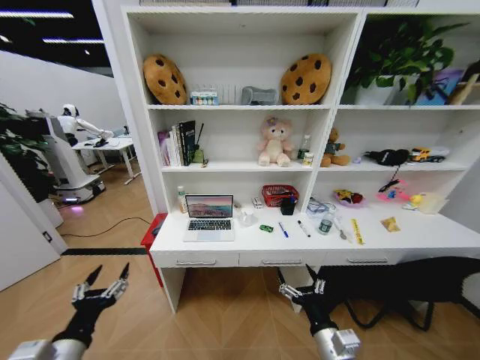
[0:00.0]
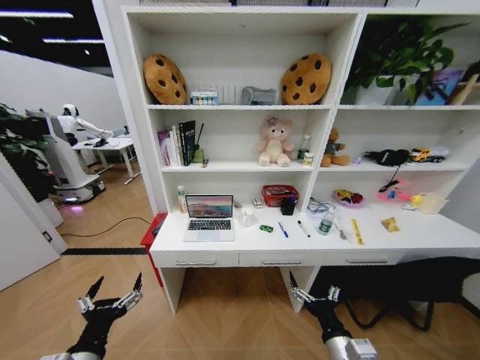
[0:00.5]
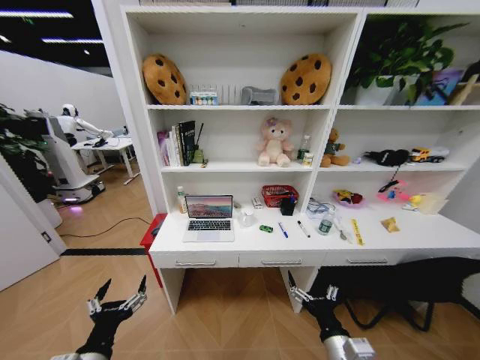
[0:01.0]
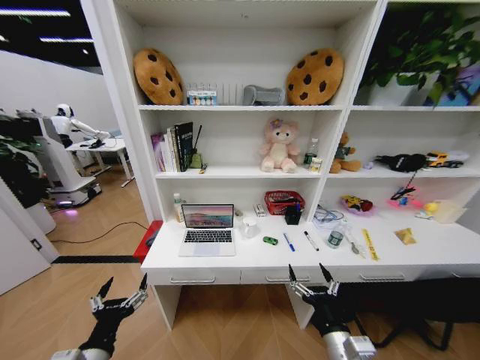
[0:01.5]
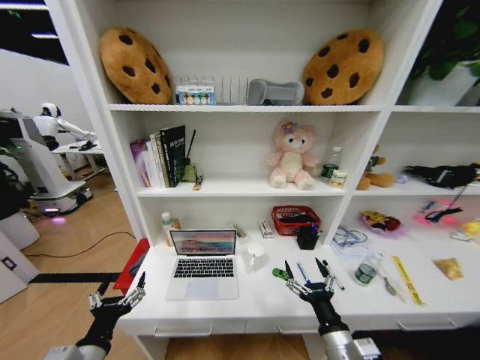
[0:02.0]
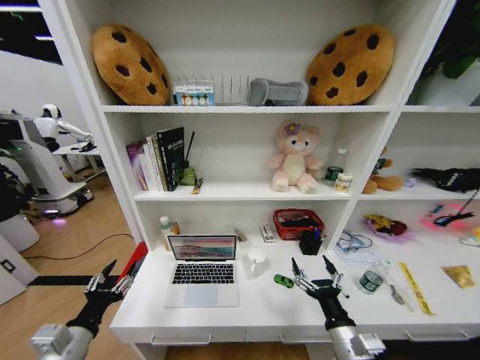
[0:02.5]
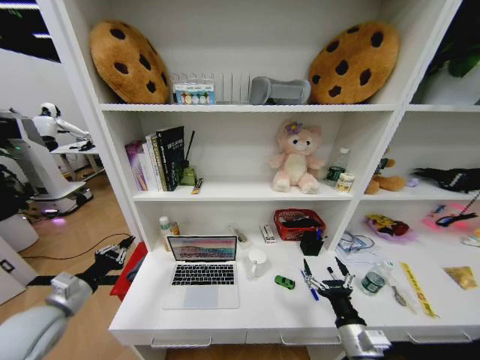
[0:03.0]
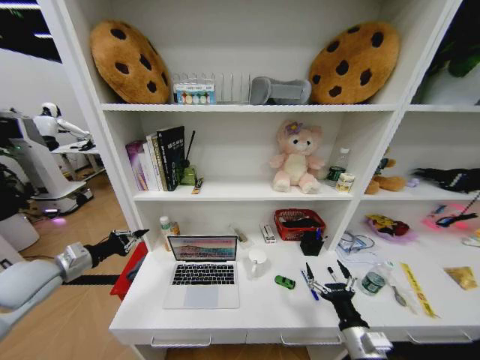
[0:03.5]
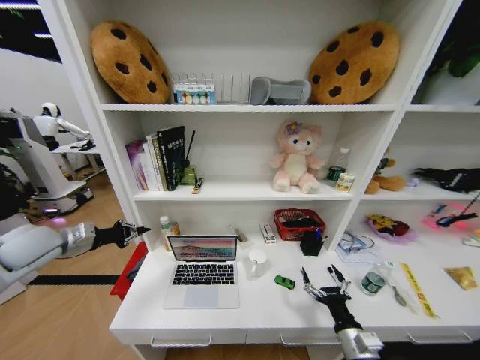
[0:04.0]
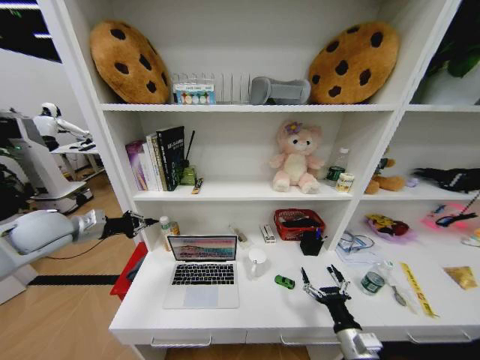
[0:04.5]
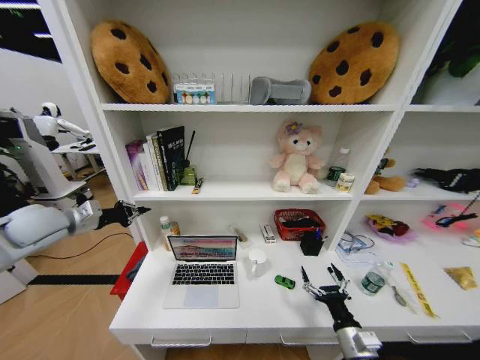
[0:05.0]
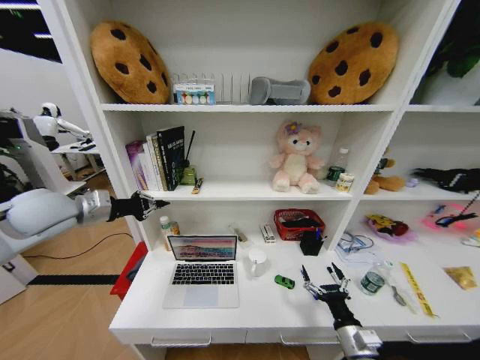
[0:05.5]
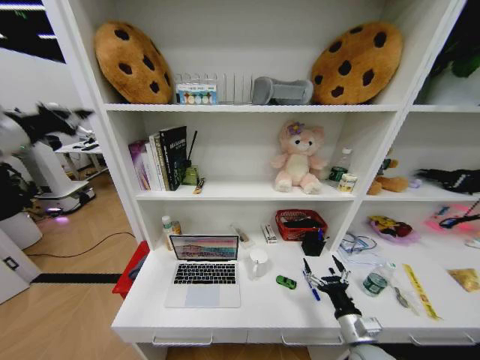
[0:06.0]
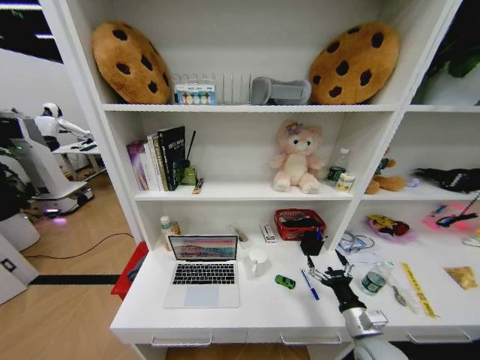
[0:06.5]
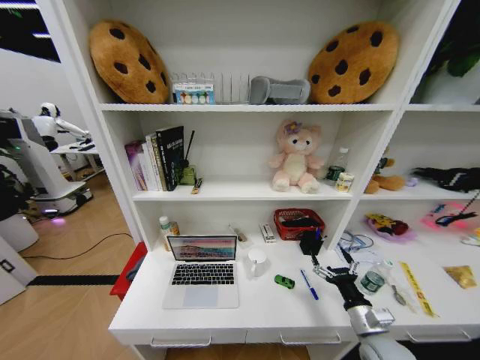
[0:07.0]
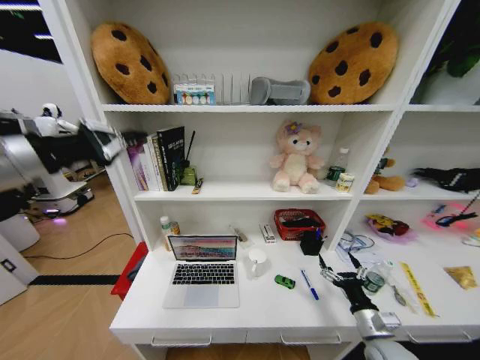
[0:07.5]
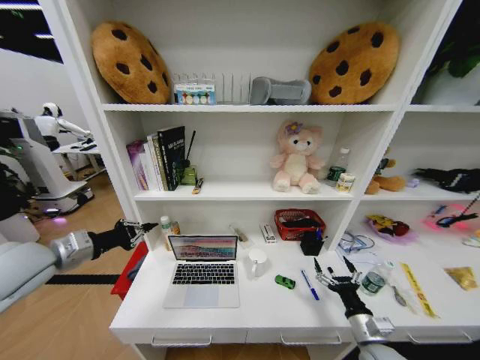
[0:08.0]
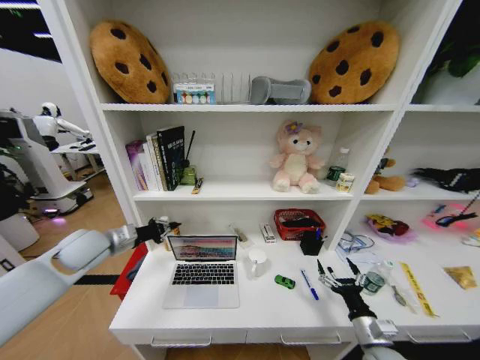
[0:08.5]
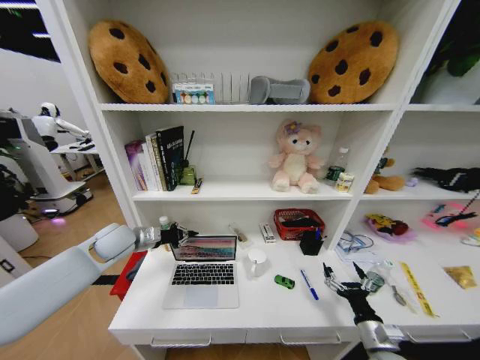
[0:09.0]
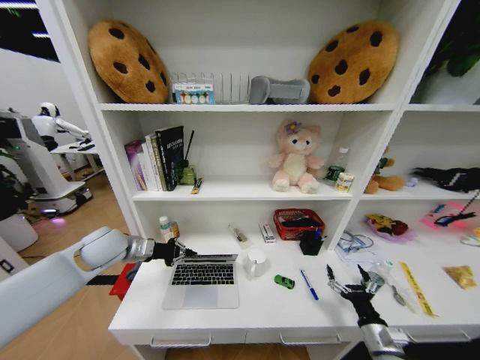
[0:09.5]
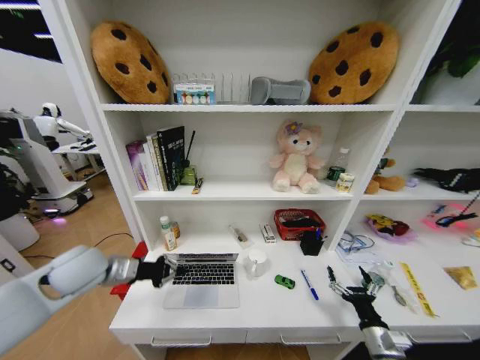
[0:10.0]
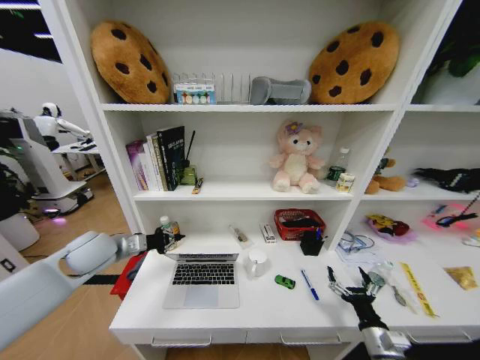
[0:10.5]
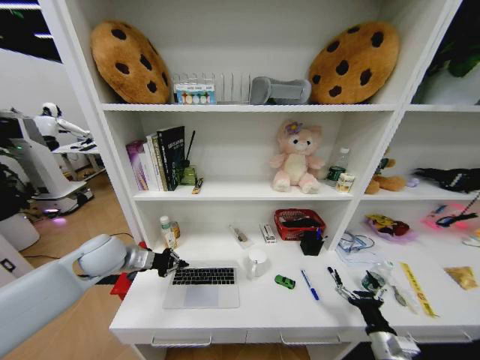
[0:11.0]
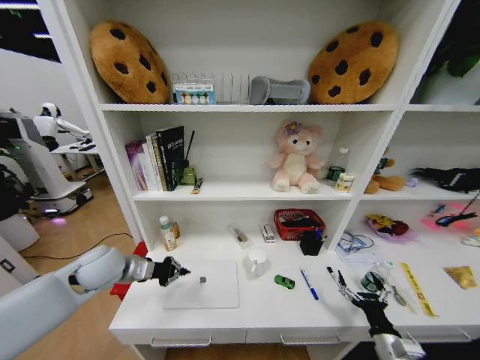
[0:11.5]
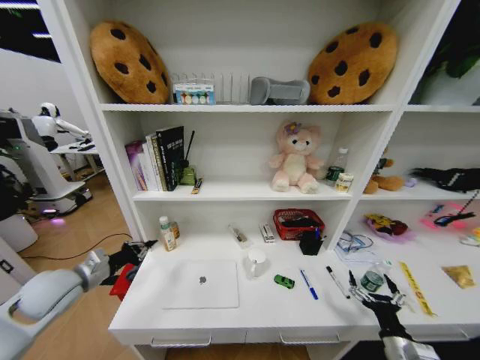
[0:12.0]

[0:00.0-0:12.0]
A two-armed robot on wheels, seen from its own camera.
Task of the whole recording: Organize the objects on the table.
0:02.0 to 0:04.0: The right gripper travels to the right and downward by approximately 10 cm. The left gripper is displaced forward, to the left and upward by some 35 cm, and closes its fingers.
0:04.0 to 0:06.0: The left gripper goes about 20 cm upward.
0:06.0 to 0:08.0: The left gripper goes roughly 15 cm backward and to the right, and travels upward and back again, about 30 cm each way.
0:08.0 to 0:10.0: The left gripper is displaced downward and to the right by roughly 10 cm, and moves some 10 cm forward and comes back.
0:10.0 to 0:12.0: The left gripper shifts approximately 10 cm to the left and downward.

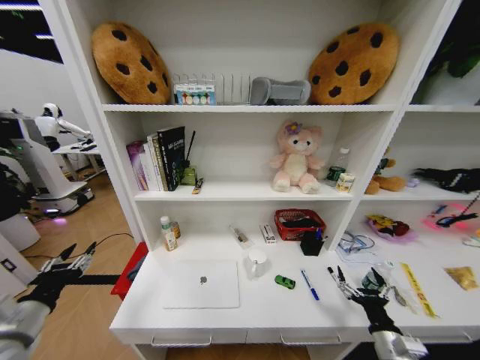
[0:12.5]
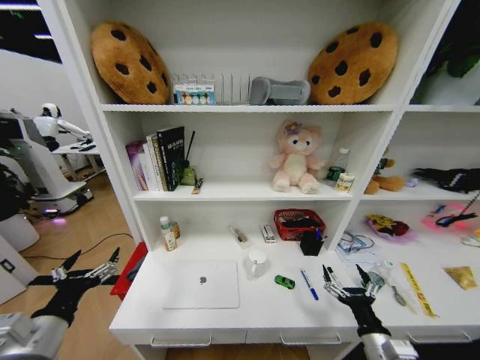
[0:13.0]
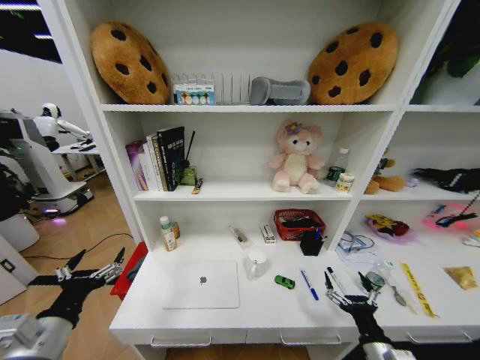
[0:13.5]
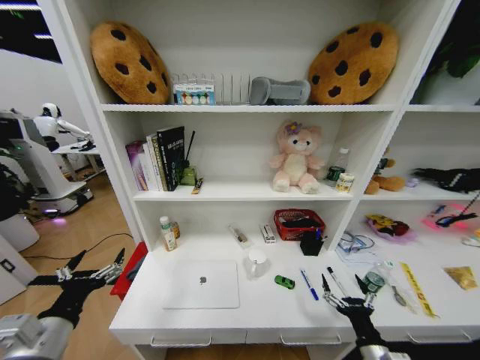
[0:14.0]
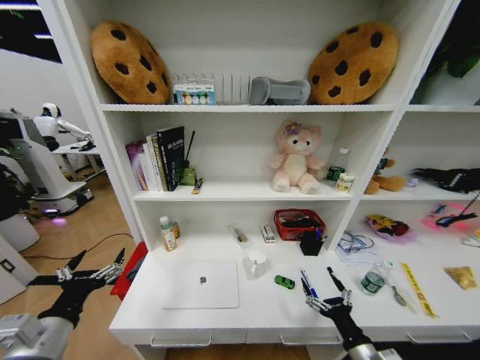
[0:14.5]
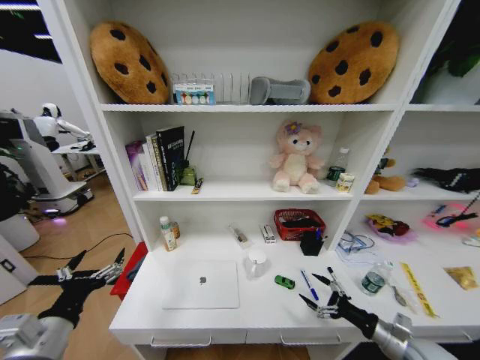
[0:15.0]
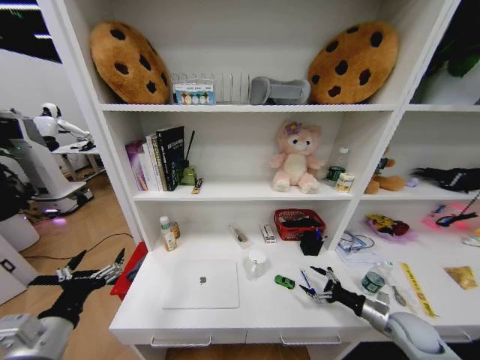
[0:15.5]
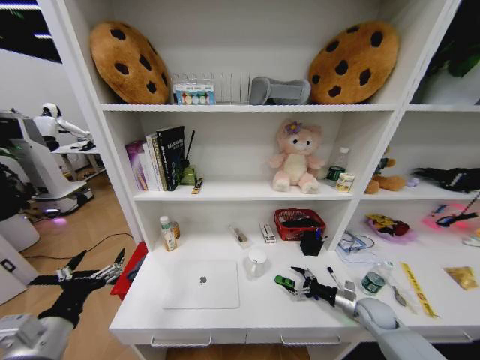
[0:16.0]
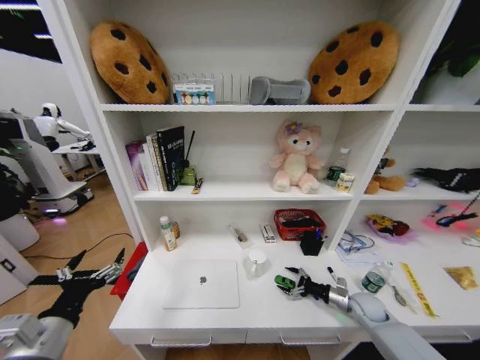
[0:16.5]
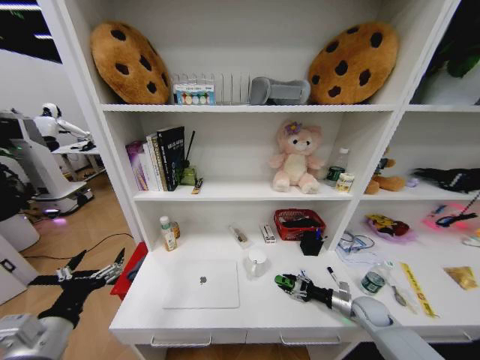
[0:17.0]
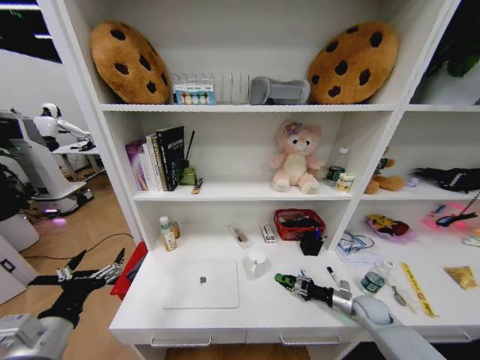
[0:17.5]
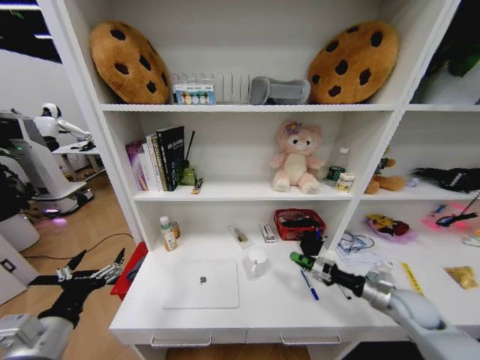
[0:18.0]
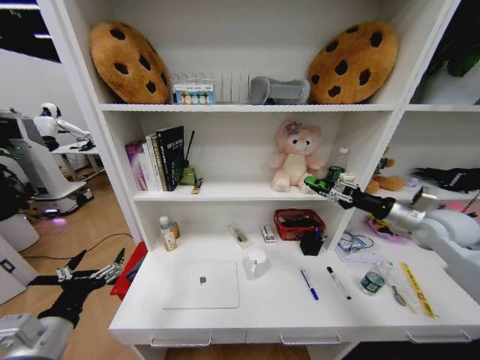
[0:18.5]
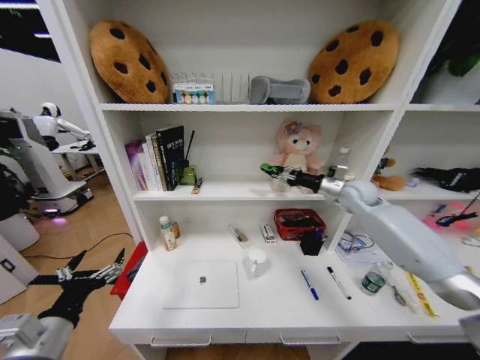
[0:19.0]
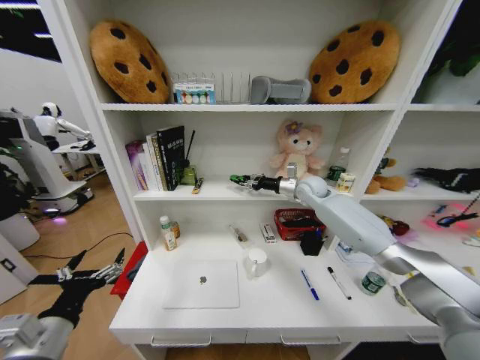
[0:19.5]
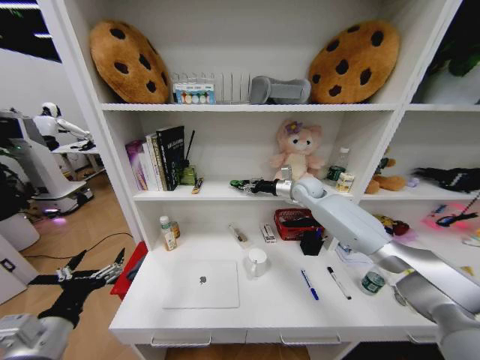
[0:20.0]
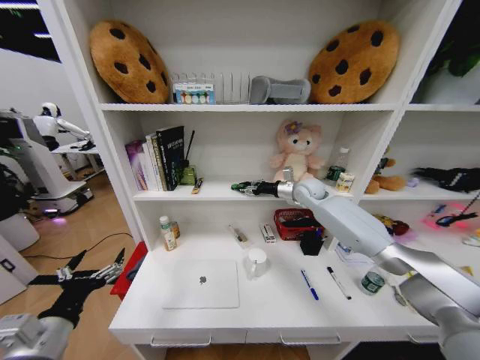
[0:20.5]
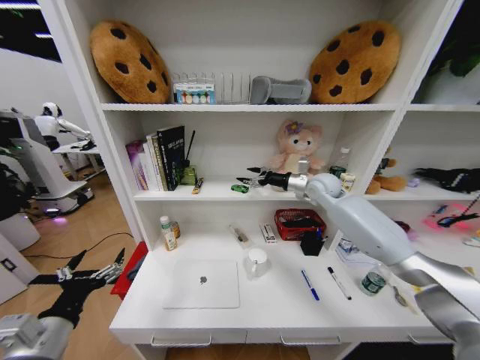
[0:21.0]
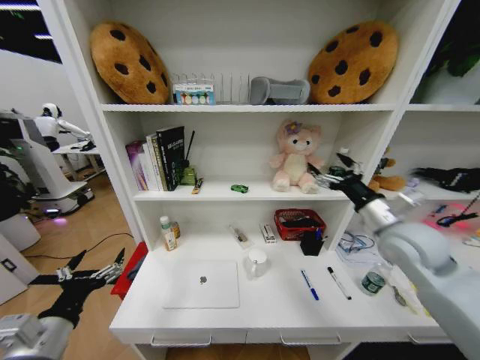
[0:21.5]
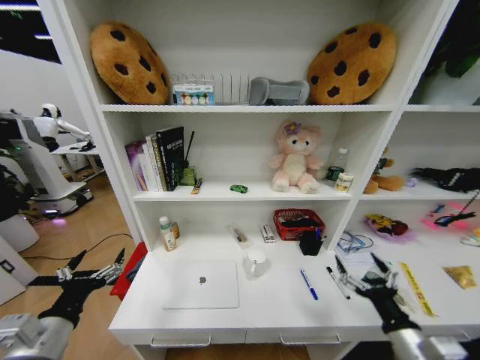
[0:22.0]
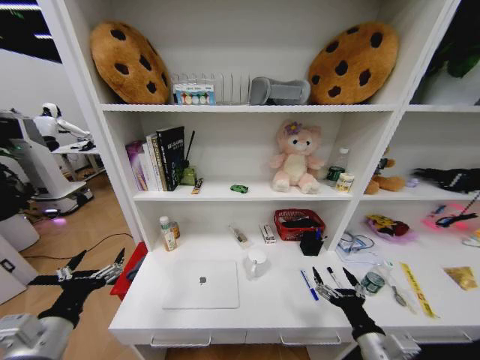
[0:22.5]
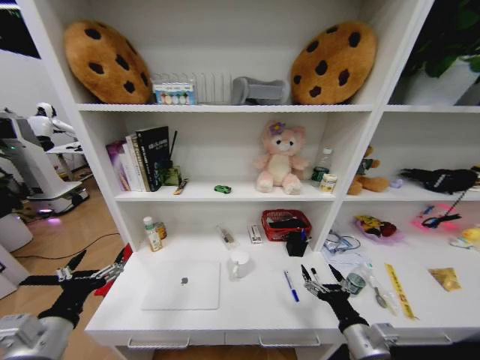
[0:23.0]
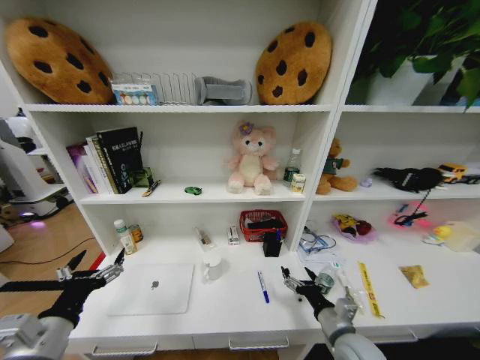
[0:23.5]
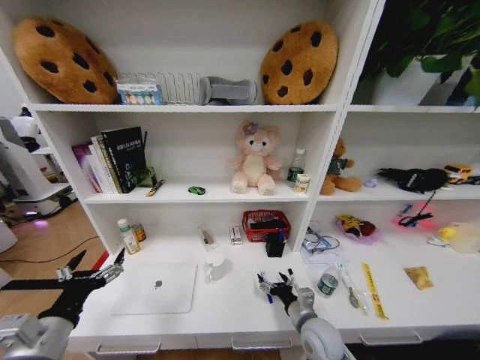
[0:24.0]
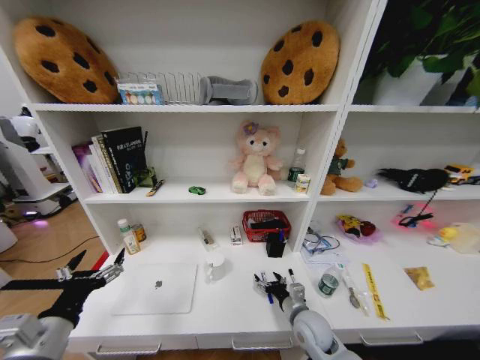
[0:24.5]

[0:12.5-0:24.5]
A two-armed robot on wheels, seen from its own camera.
Task of the whole recording: Organize the objects on the table.
0:12.5 to 0:14.5: The right gripper goes roughly 5 cm to the left. The left gripper goes about 10 cm to the right, and opens up.
0:14.5 to 0:16.5: The right gripper is displaced forward and to the right by about 25 cm.
0:16.5 to 0:18.5: The right gripper moves upward, about 30 cm, and closes.
0:18.5 to 0:20.5: The right gripper is displaced forward and to the left by roughly 30 cm.
0:20.5 to 0:22.5: The right gripper is displaced backward by approximately 50 cm, and opens.
0:22.5 to 0:24.5: The right gripper goes about 20 cm forward, to the left and downward.

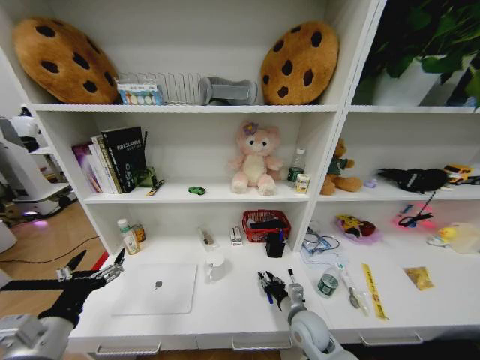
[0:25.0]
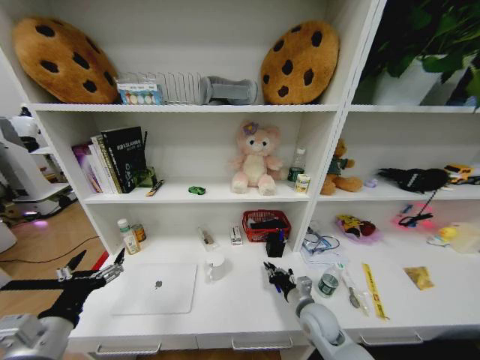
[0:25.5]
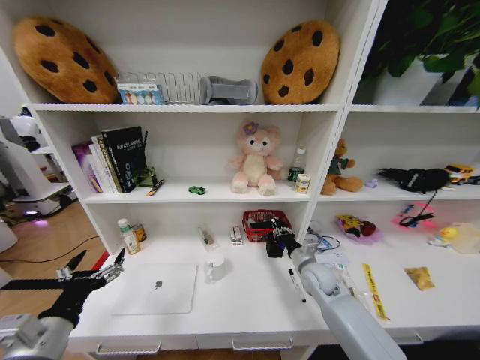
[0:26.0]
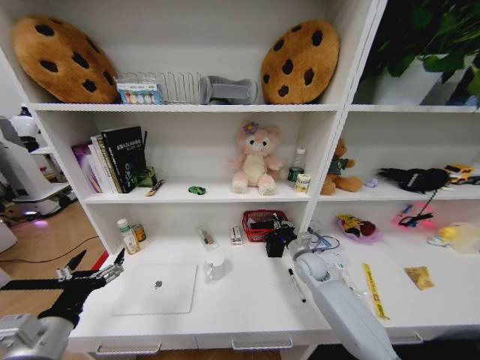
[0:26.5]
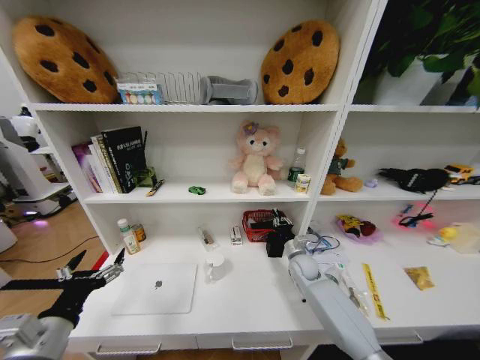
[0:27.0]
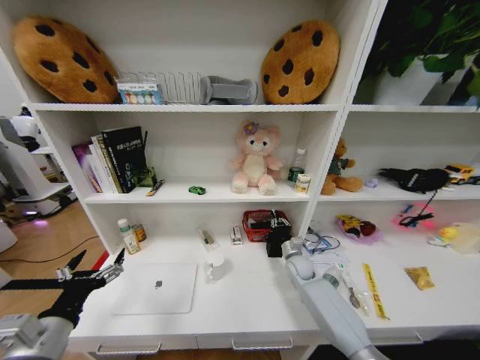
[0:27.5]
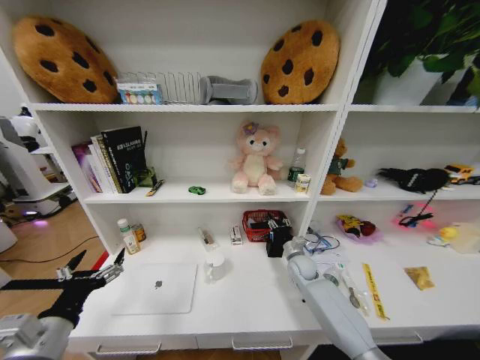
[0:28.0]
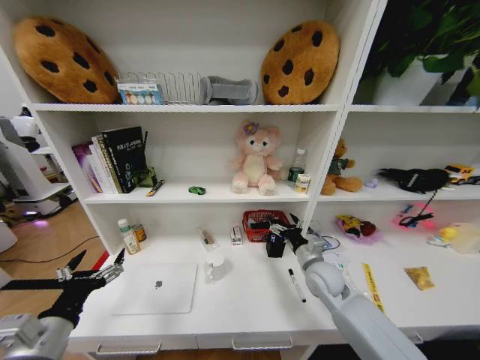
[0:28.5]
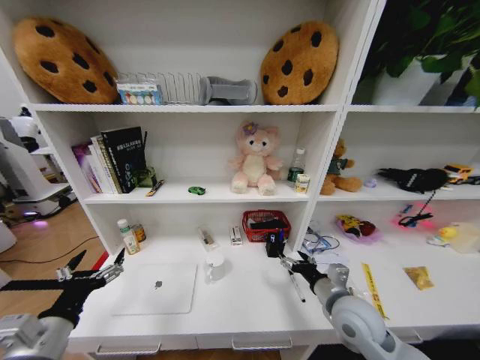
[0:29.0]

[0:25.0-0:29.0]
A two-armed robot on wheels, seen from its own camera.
Task of the whole recording: Organize the objects on the table.
0:25.0 to 0:27.0: The right gripper shifts roughly 20 cm forward.
0:27.0 to 0:29.0: The right gripper shifts about 25 cm backward and upward, and opens its fingers.
